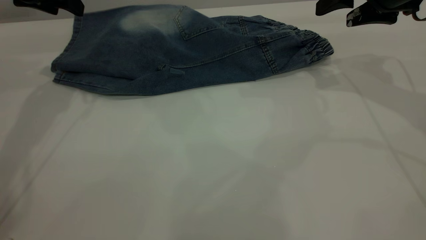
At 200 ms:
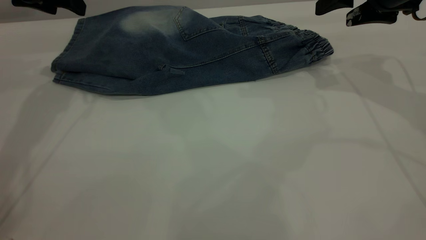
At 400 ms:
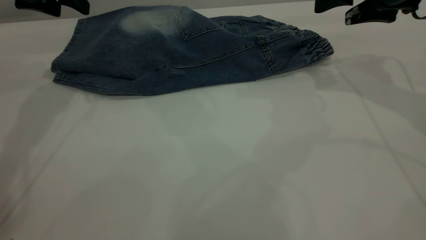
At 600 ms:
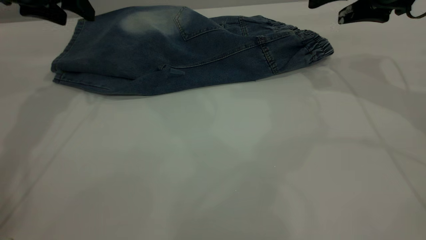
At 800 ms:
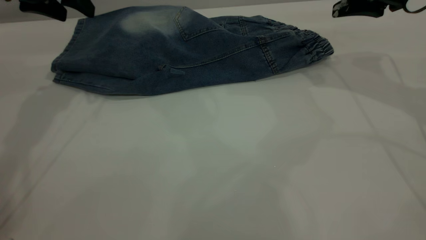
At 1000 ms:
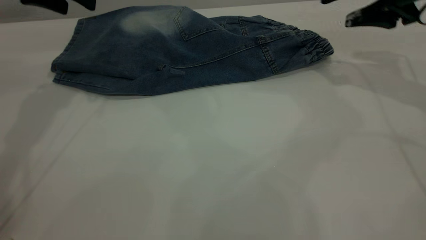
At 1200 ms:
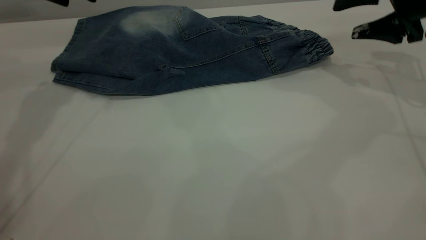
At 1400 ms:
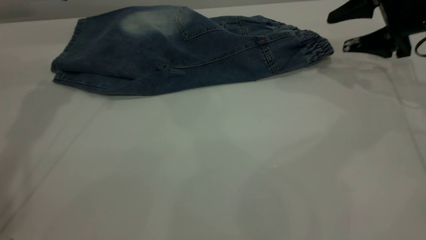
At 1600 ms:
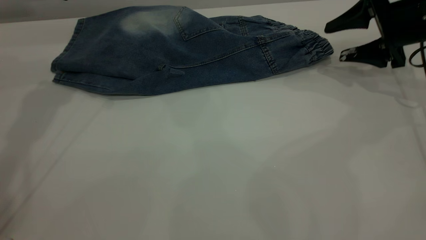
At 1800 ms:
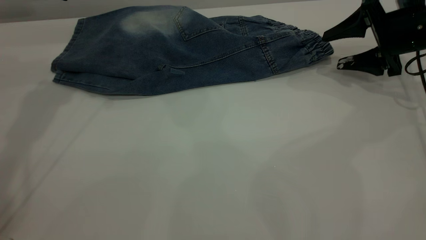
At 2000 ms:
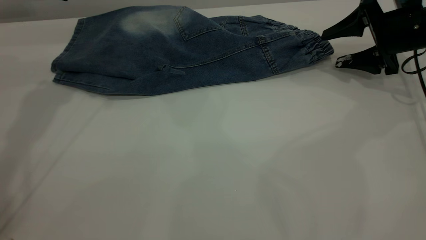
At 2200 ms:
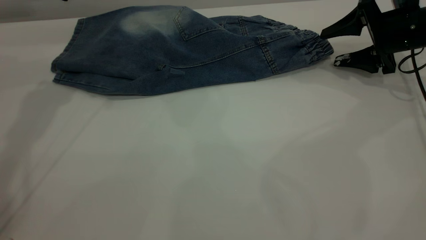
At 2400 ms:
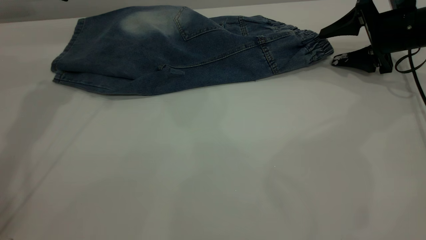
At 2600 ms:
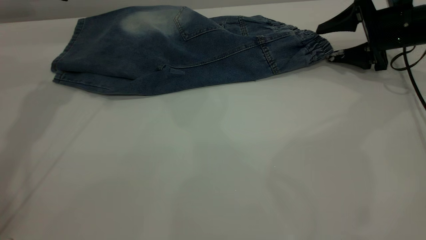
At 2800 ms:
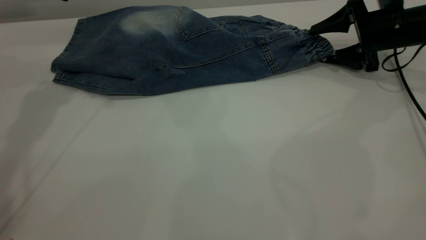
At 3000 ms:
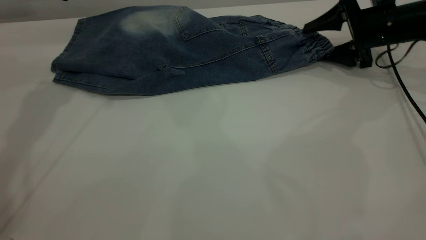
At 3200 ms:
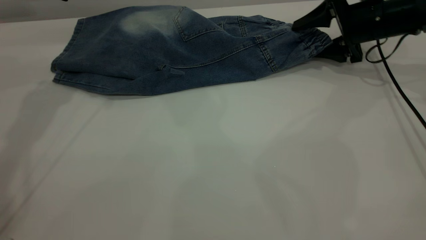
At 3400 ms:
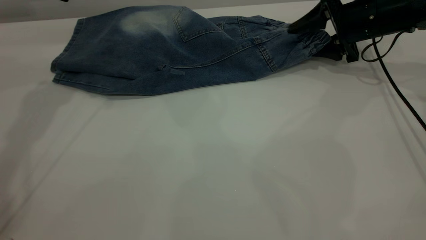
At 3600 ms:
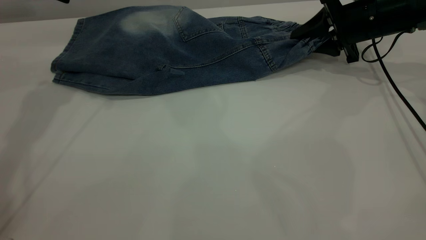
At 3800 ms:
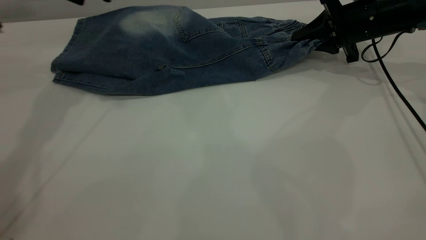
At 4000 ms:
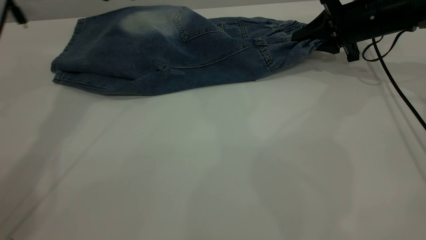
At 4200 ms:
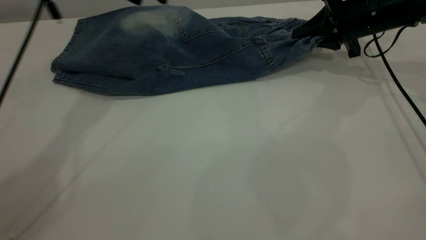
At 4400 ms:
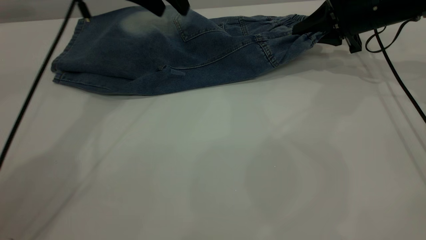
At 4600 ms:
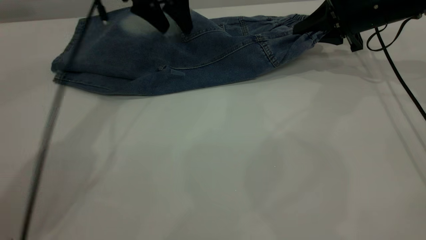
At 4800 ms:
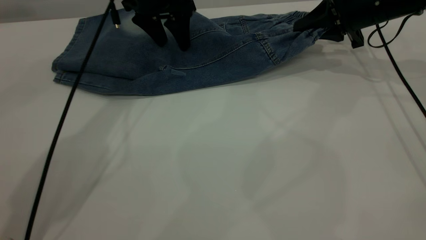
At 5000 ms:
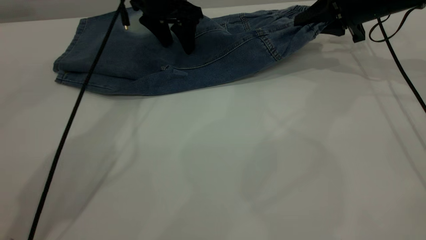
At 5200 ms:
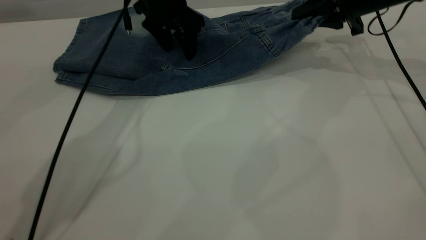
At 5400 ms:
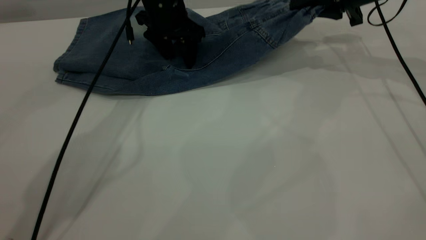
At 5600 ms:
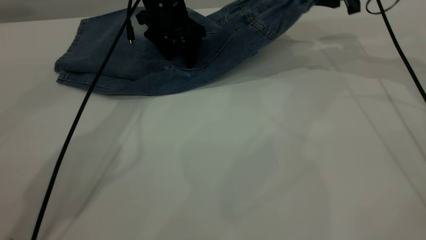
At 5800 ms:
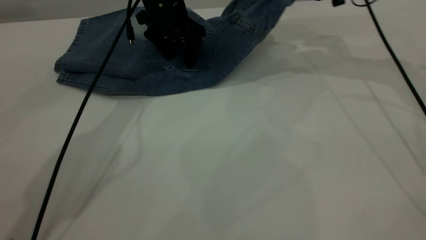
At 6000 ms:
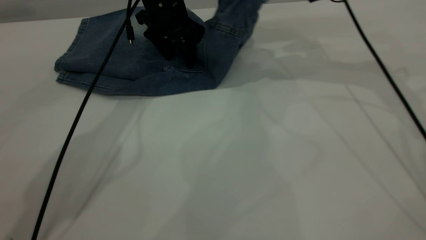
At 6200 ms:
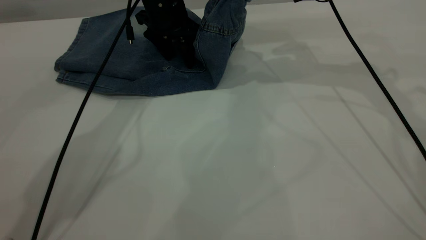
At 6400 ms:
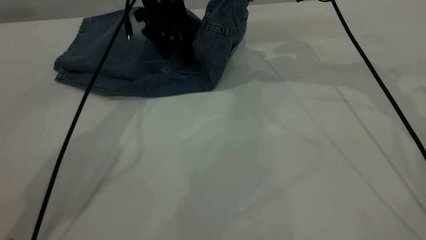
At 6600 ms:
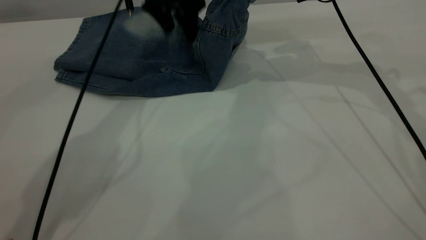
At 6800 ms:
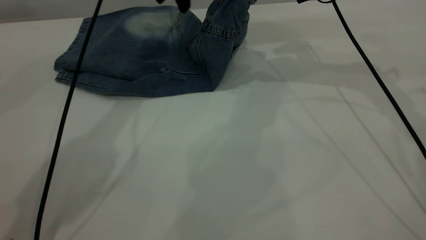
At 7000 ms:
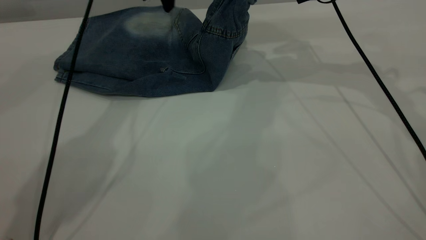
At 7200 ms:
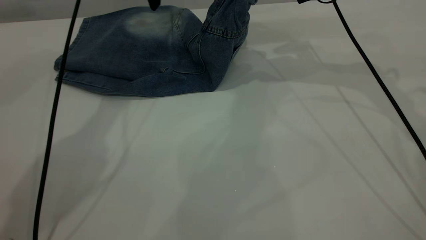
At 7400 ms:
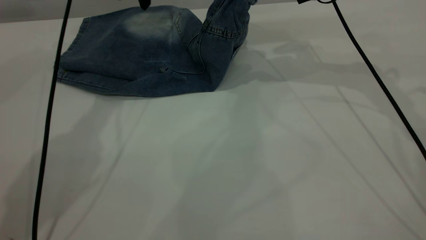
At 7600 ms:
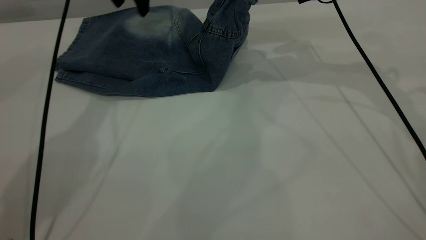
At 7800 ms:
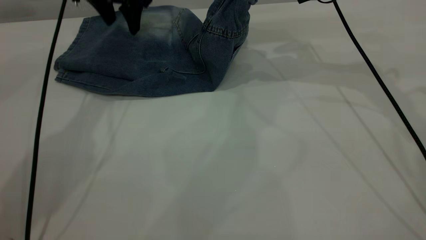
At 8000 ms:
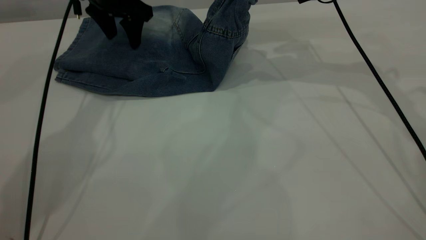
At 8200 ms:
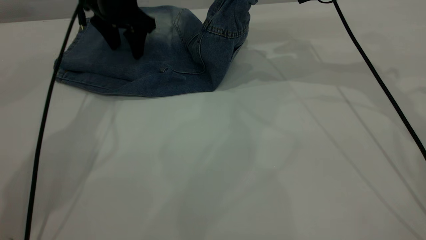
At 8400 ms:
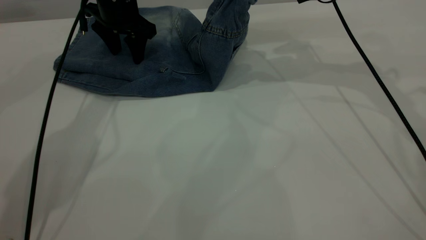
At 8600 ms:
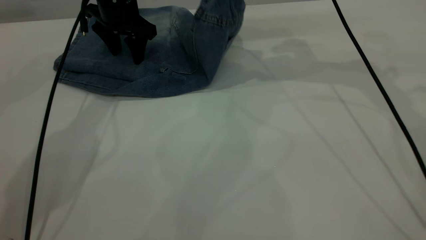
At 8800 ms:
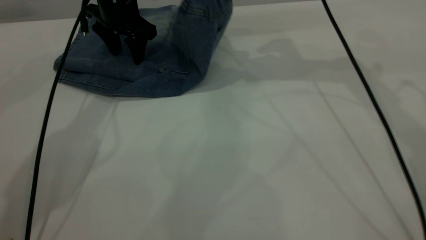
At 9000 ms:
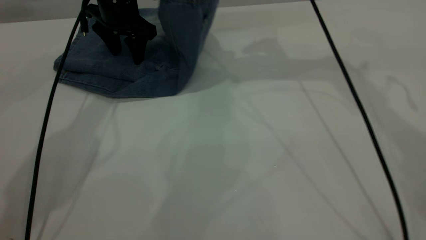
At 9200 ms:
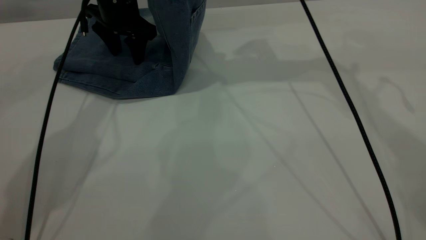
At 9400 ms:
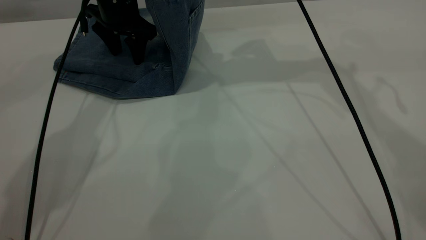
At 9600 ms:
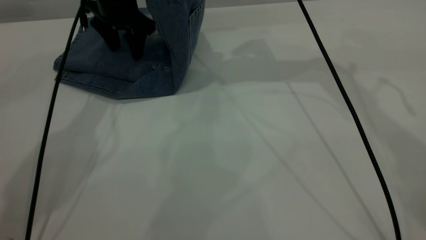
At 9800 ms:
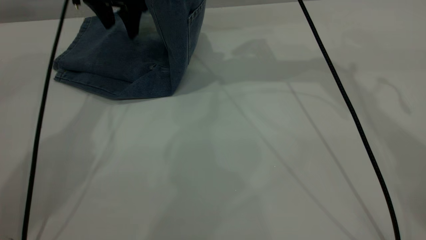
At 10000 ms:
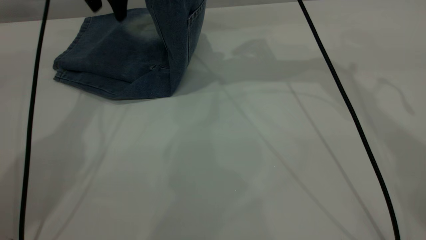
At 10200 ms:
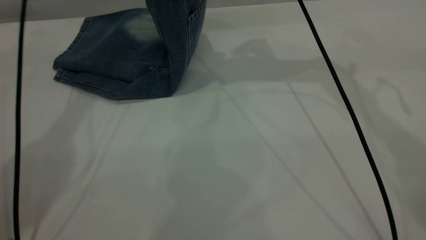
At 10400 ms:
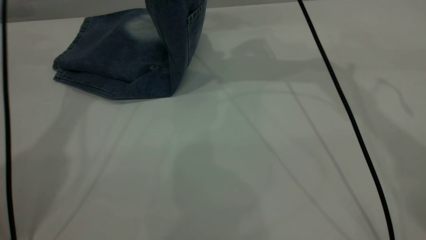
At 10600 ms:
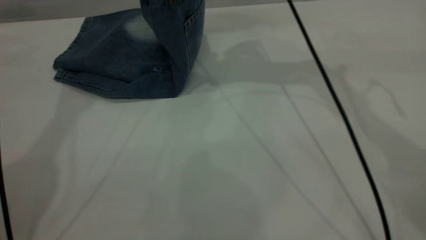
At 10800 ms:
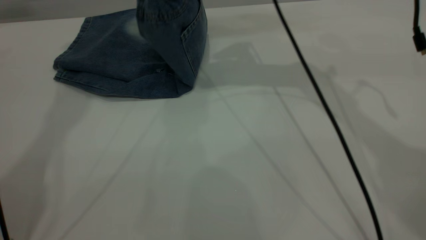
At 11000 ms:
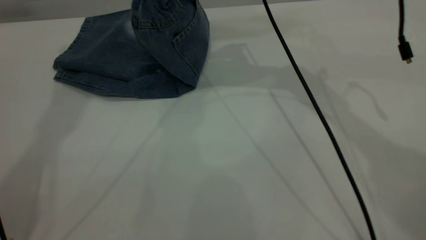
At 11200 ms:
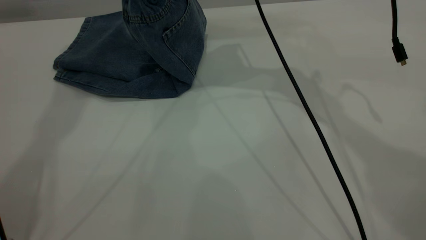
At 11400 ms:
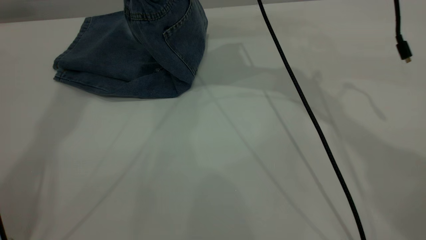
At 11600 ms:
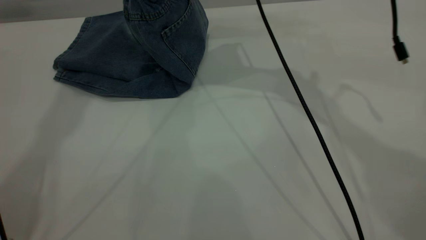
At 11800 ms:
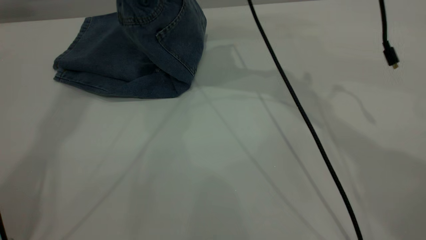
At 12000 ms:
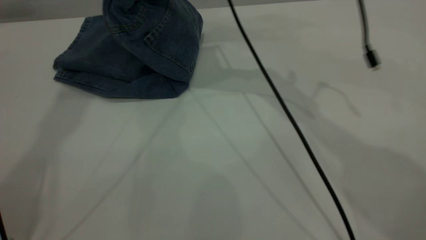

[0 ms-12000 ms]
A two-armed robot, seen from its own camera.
0 ms to 1600 ms: The right gripper travels downward by approximately 10 cm.
1600 ms to 3000 ms: The right gripper travels forward by some 5 cm.
3000 ms to 4400 ms: The right gripper closes its fingers. The left gripper goes about 15 cm to the right.
4400 ms to 6000 ms: The right gripper moves upward and to the left, roughly 15 cm; the left gripper moves downward, about 10 cm.
6000 ms to 7600 ms: The left gripper heads upward and to the left, covering about 10 cm.
7600 ms to 9000 ms: The right gripper moves upward and to the left, approximately 10 cm. Meanwhile the left gripper moves downward, some 5 cm.
9000 ms to 10400 ms: The left gripper goes about 20 cm upward.
10400 ms to 12000 ms: The right gripper shifts about 10 cm to the left and downward. The left gripper moves upward and backward, roughly 15 cm.

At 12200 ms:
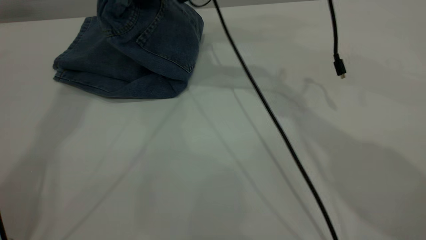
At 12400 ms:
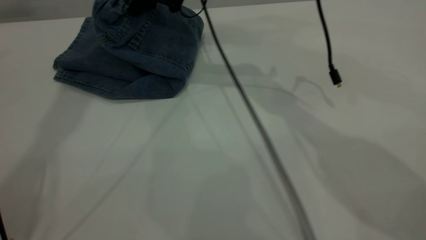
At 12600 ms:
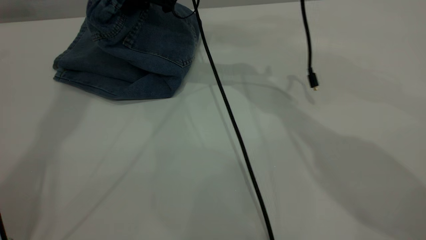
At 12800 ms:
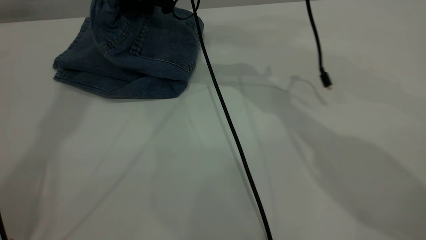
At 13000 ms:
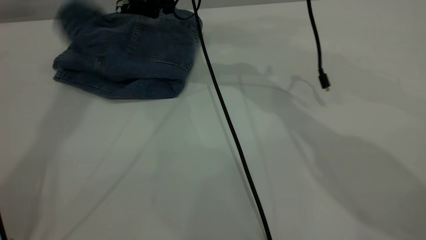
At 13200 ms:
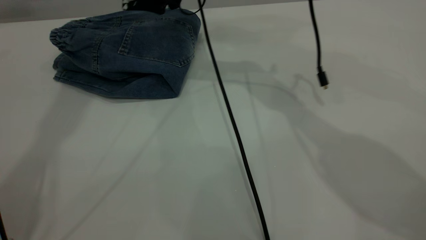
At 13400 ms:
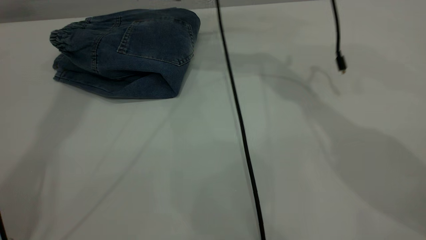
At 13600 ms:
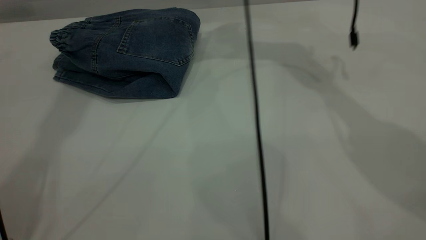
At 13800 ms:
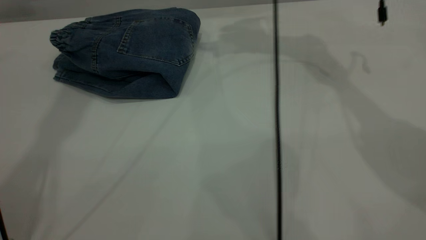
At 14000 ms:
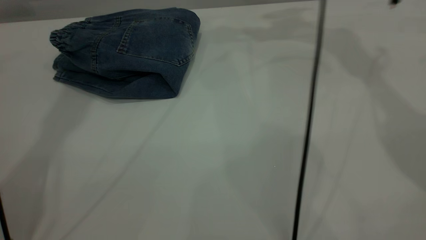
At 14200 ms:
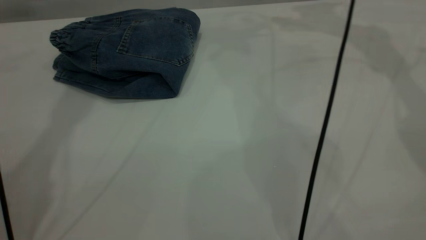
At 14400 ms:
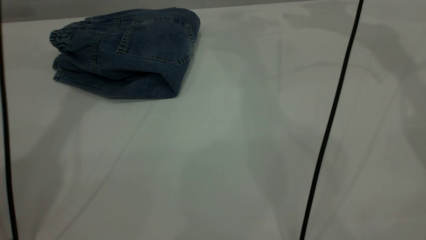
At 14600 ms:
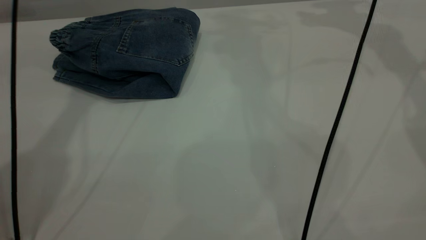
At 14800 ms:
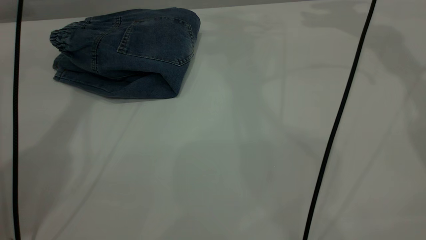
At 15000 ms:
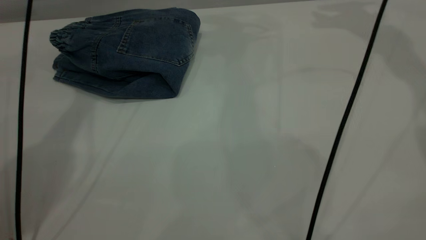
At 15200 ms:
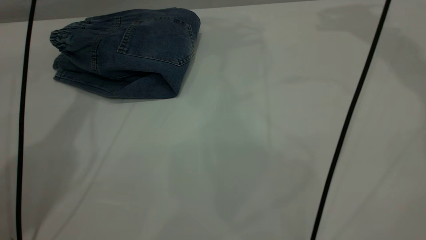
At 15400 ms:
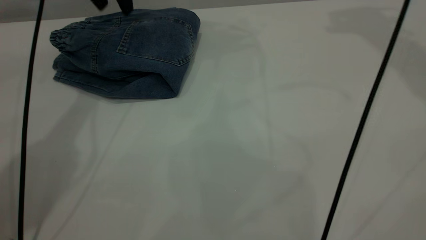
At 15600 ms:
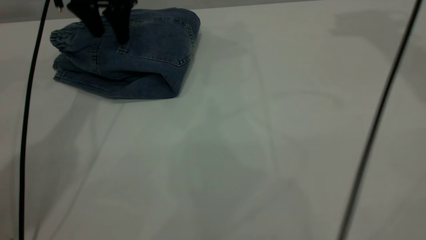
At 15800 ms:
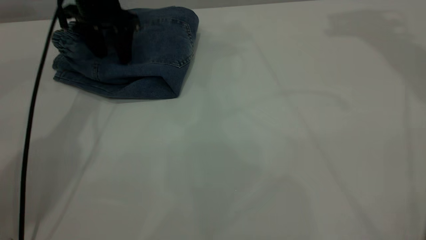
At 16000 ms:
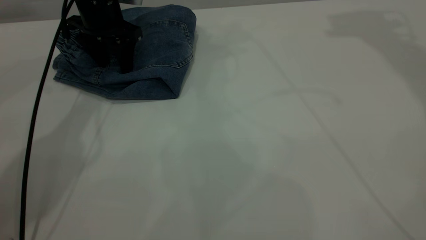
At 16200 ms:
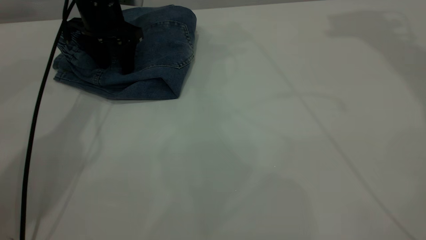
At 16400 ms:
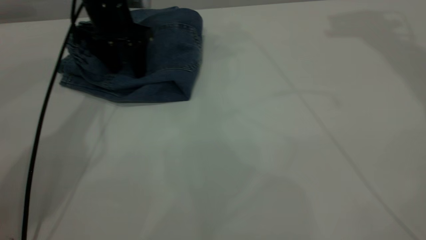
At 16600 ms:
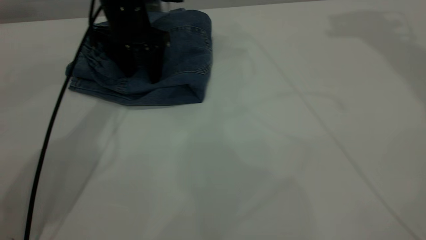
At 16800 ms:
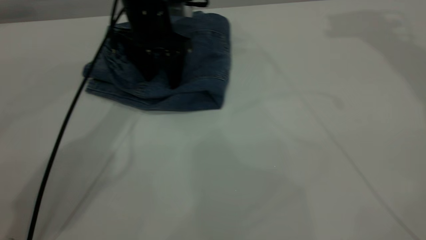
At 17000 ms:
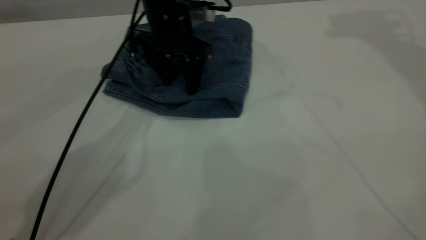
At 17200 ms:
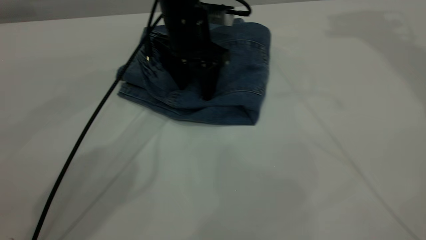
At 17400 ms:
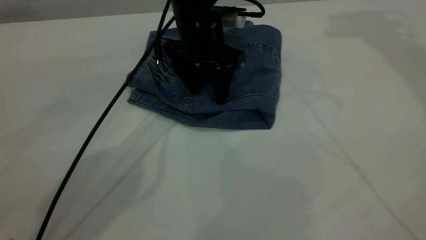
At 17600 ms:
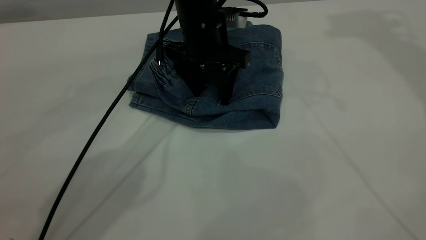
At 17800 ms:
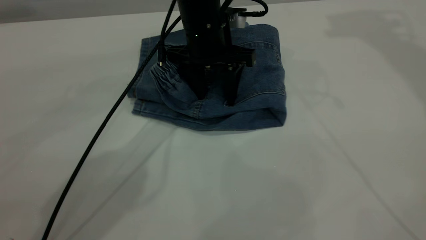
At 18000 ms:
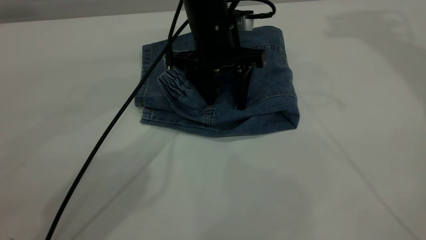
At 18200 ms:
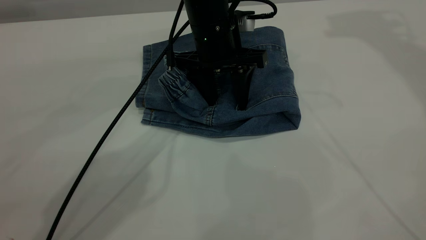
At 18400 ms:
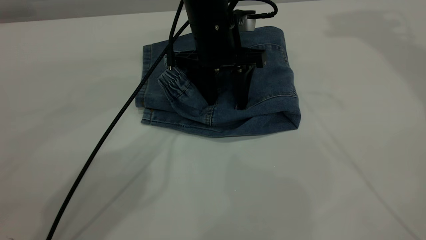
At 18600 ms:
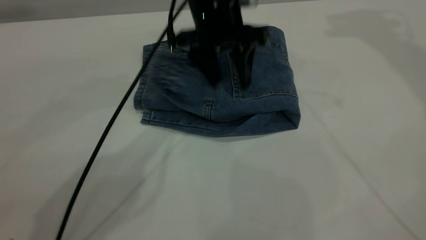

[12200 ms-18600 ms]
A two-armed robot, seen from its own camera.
12200 ms to 13800 ms: The right gripper goes roughly 15 cm to the right, forward and upward, and opens its fingers.
13800 ms to 15400 ms: The left gripper is displaced downward by about 25 cm. The right gripper moves upward and to the right, roughly 25 cm.
15400 ms to 17000 ms: The left gripper moves to the right, downward and backward, some 15 cm.
17000 ms to 18600 ms: The left gripper heads upward and to the right, covering approximately 10 cm.
